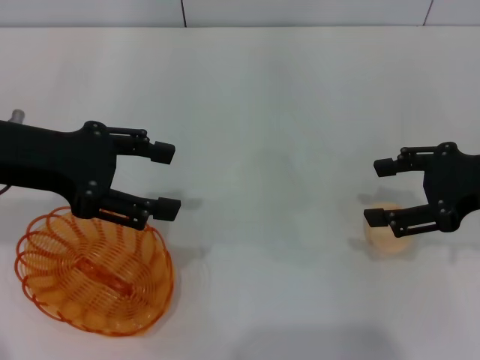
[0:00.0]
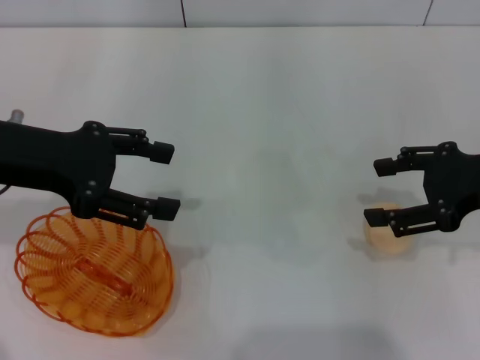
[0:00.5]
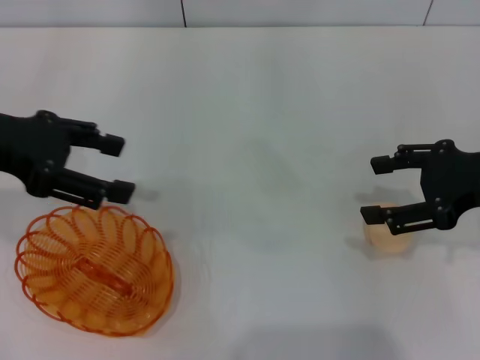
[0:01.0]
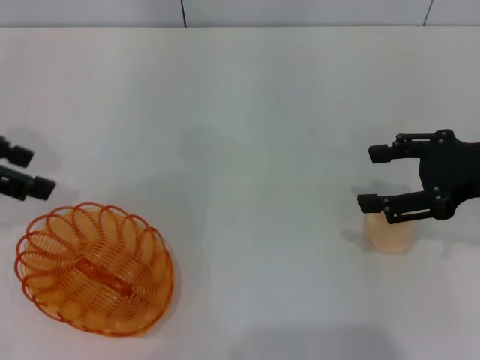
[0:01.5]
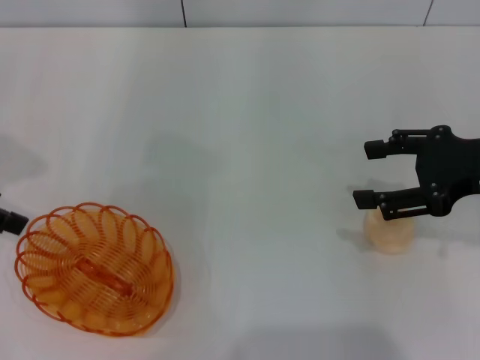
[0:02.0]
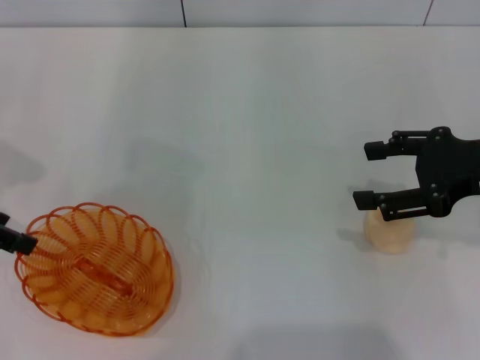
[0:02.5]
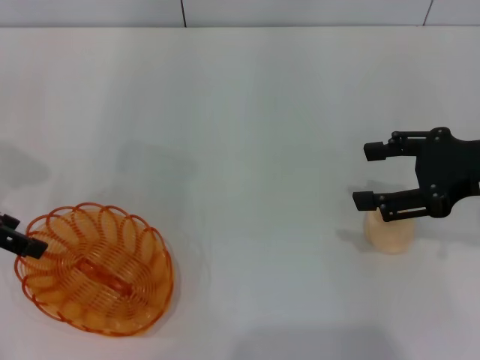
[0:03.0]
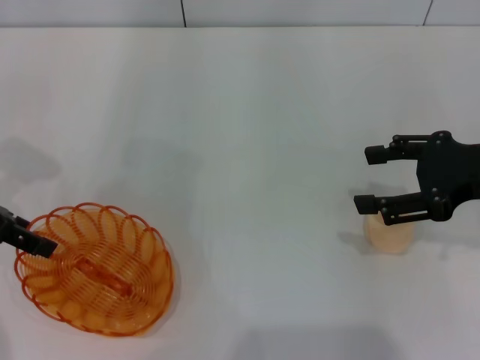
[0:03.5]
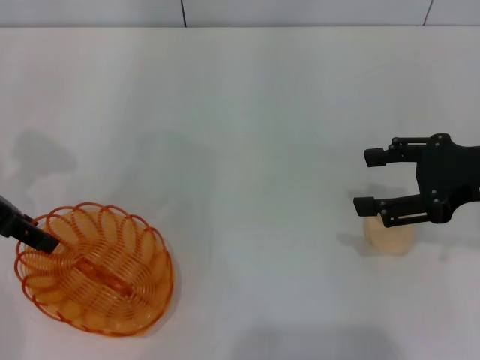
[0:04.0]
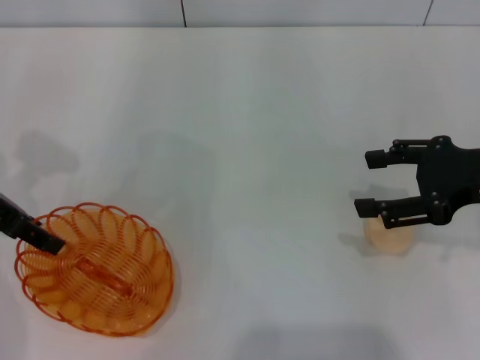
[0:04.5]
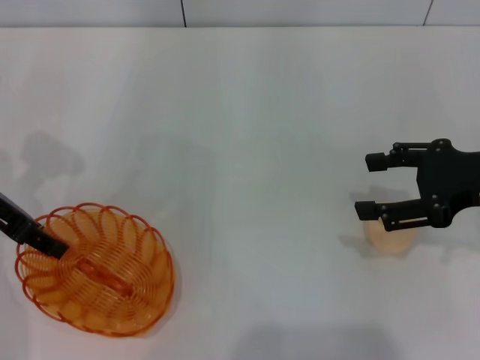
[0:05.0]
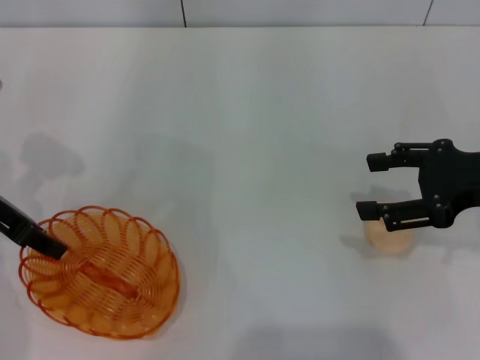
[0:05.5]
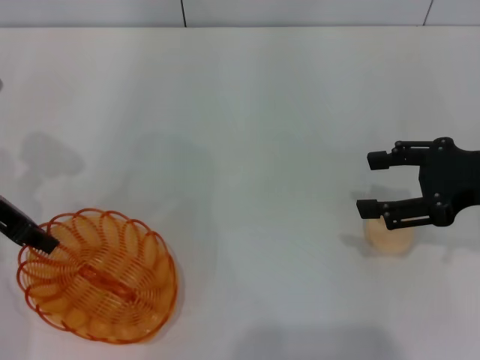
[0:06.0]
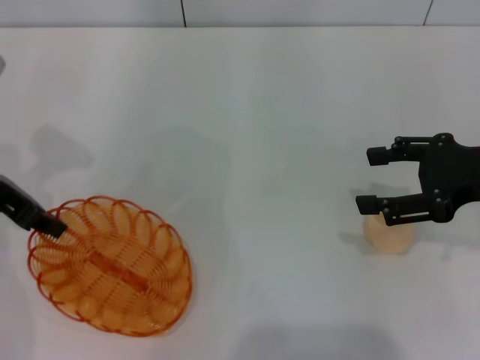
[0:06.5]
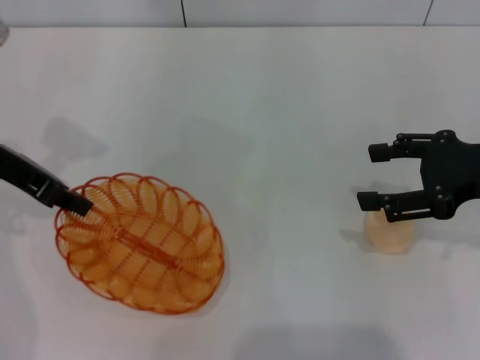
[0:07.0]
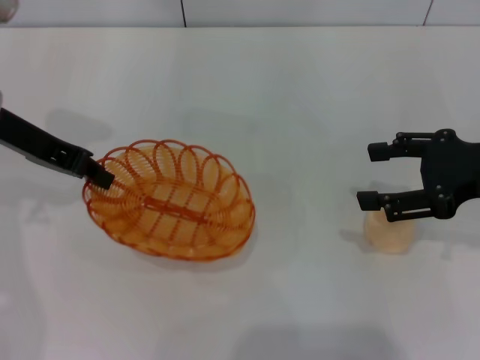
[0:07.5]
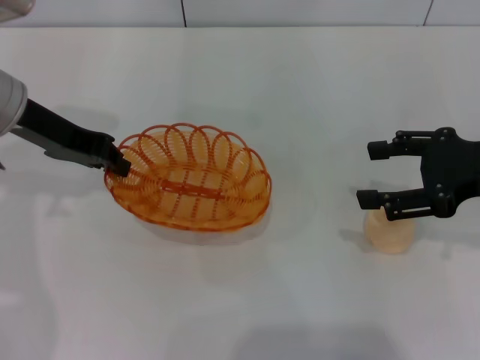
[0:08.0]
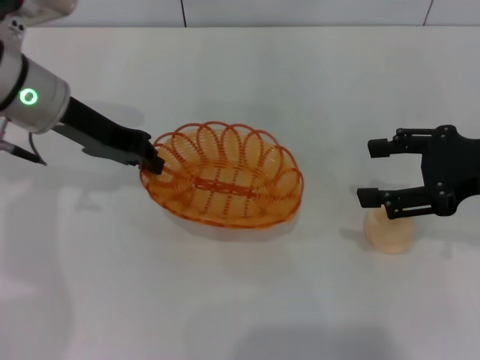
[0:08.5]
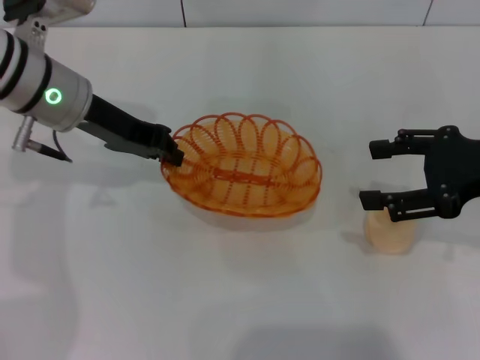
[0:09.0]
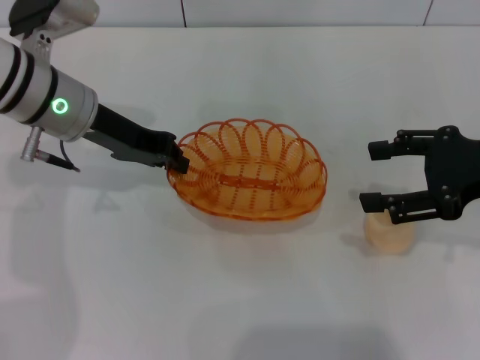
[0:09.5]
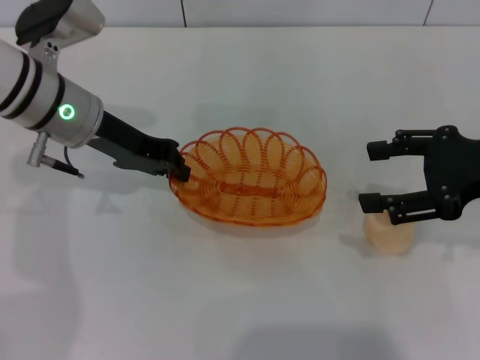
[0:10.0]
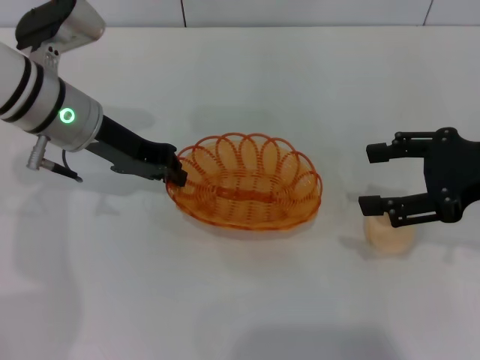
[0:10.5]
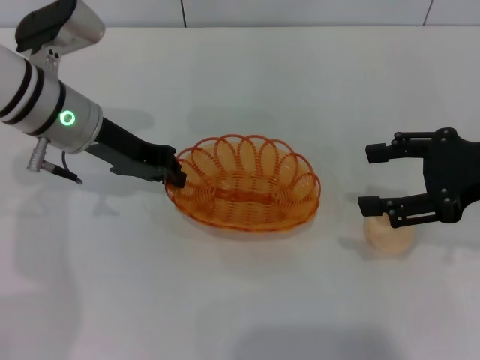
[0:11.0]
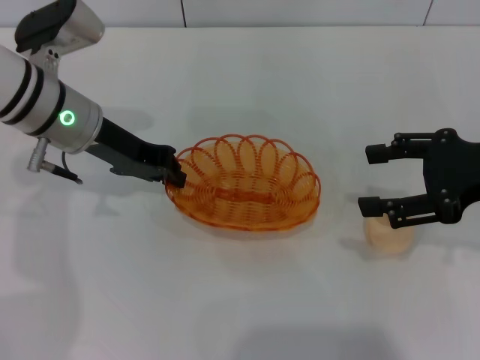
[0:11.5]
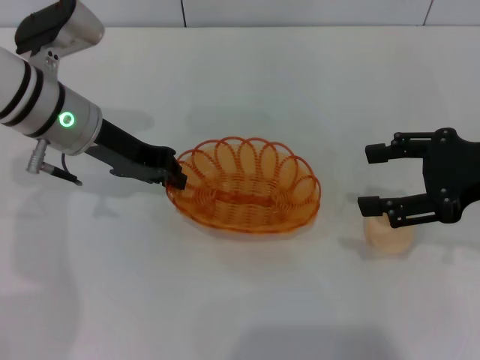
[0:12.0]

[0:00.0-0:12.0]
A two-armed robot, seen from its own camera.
Step, 0:00.0 to 0:06.5: Pick up the basket with the left gripper.
0:00.0 to 0:02.0: The left gripper goes about 10 cm to the left.
0:02.0 to 0:04.0: The left gripper changes place by about 5 cm.
0:04.0 to 0:06.0: The left gripper closes its fingers.
0:06.0 to 0:08.0: The left gripper heads to the right, covering roughly 5 cm.
0:08.0 to 0:10.0: The left gripper moves to the right, approximately 5 cm.
0:10.0 to 0:12.0: The two grippers keep their place.

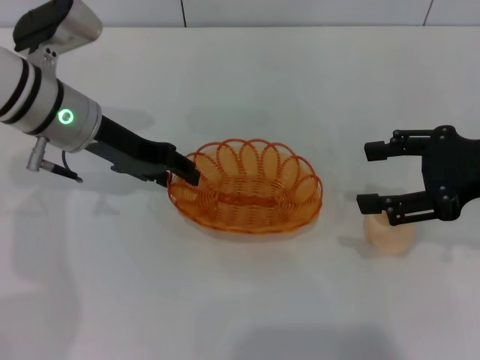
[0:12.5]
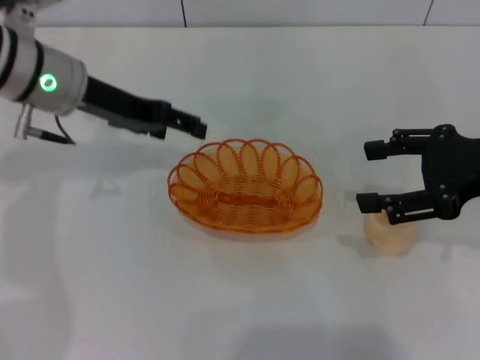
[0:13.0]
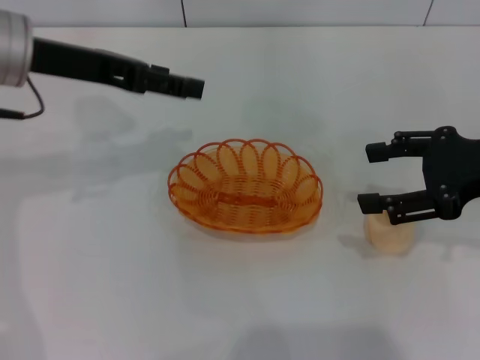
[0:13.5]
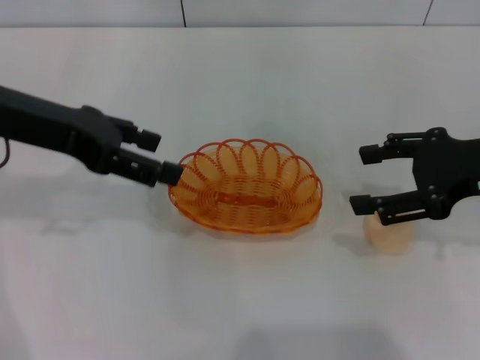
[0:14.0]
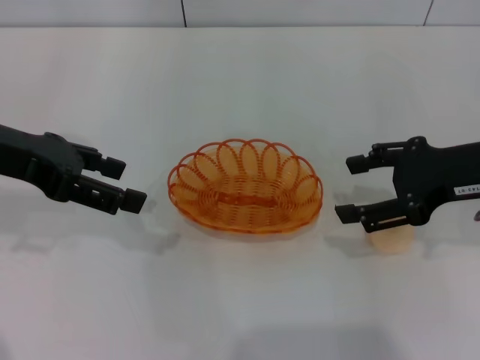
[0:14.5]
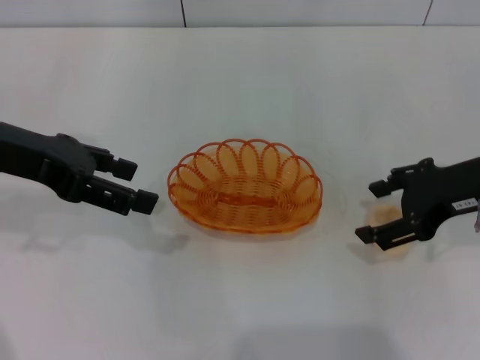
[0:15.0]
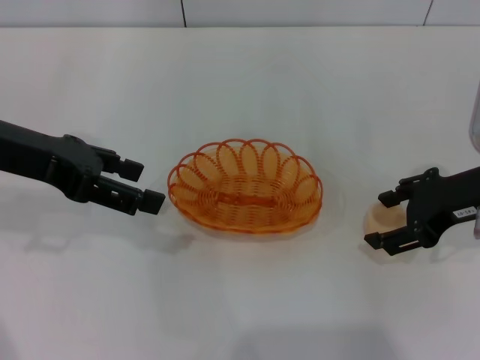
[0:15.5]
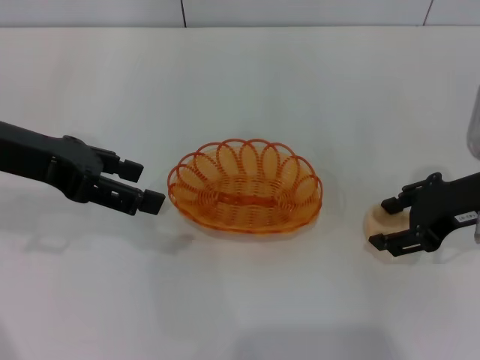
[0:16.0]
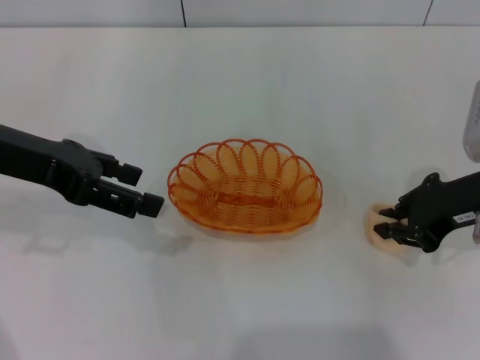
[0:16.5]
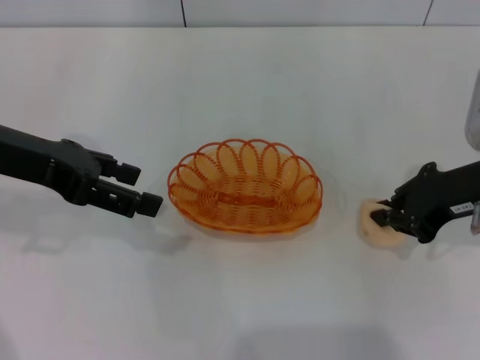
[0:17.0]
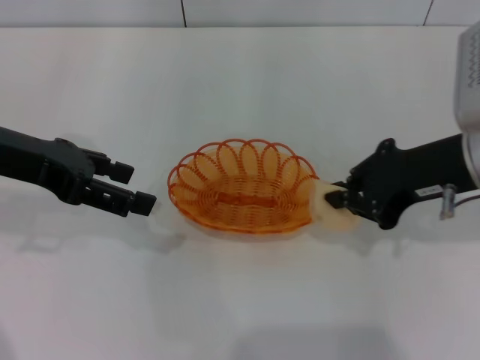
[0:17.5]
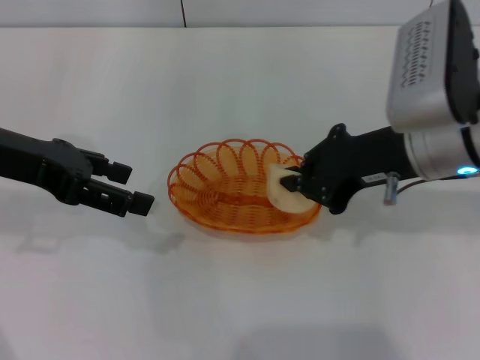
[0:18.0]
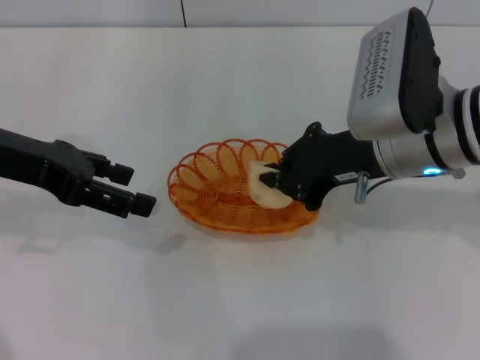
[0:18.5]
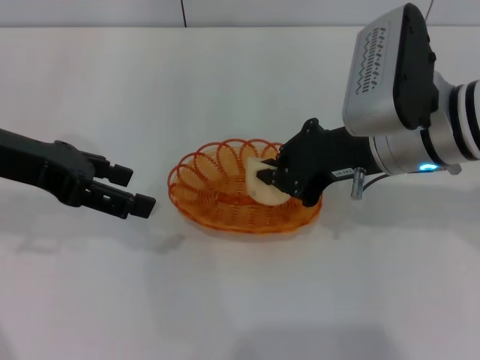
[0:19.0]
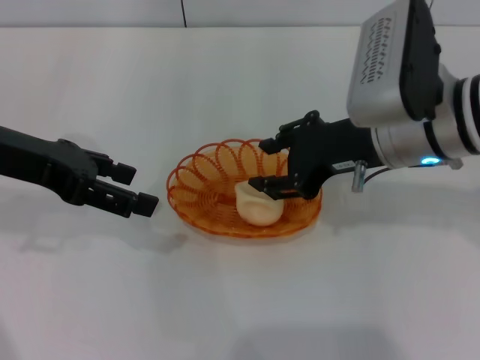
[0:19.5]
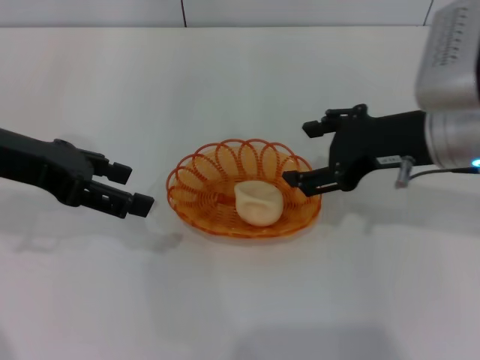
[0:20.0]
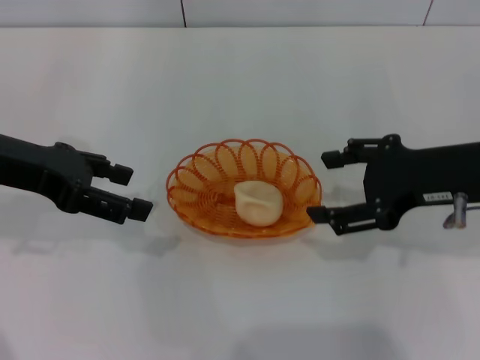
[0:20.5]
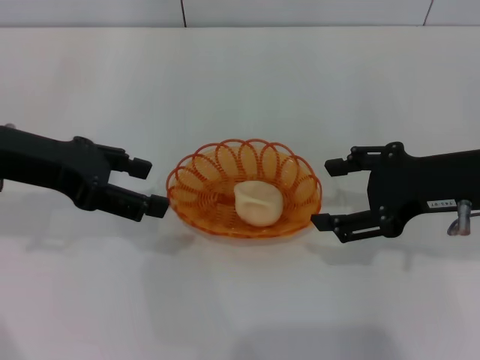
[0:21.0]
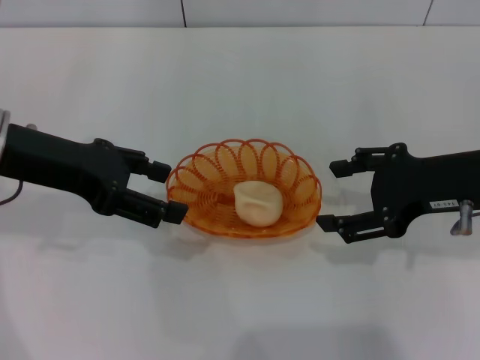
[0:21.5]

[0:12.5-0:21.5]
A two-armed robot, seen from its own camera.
Step, 0:13.5 to 0:17.0: Pick up the egg yolk pastry with the right gripper.
Step, 0:17.5 to 0:19.5: Place the egg yolk pastry into the basket with the right gripper.
0:12.5 to 0:14.5: The left gripper moves upward, to the left and backward, roughly 15 cm, and opens.
0:14.5 to 0:17.0: The right gripper closes up.
0:17.0 to 0:19.5: The right gripper heads to the left, covering about 10 cm.
0:19.5 to 0:21.5: The right gripper is displaced to the right by some 10 cm, and opens its fingers.

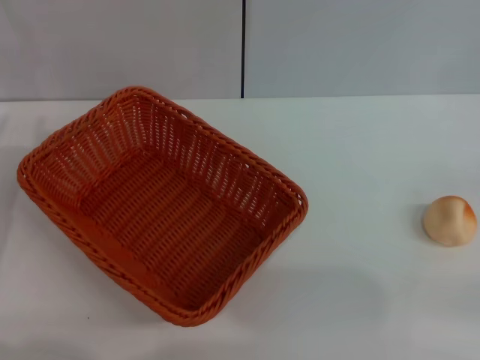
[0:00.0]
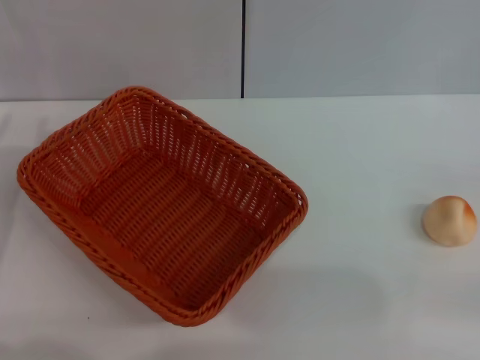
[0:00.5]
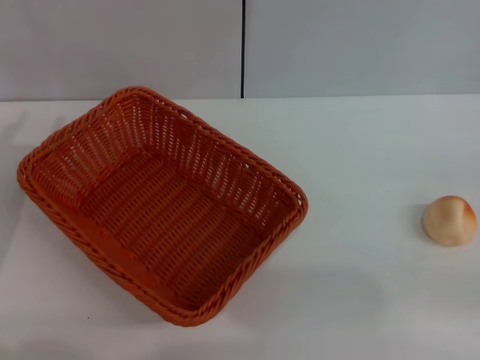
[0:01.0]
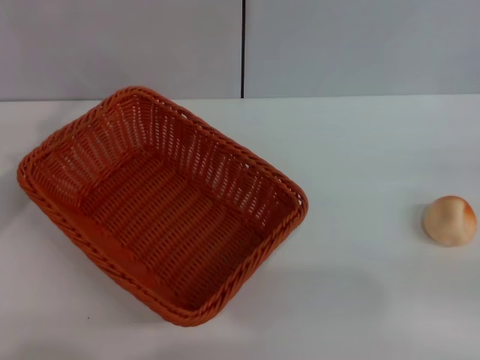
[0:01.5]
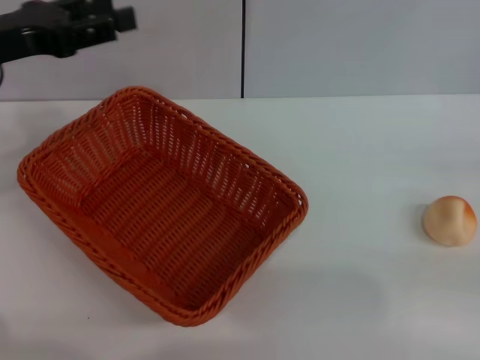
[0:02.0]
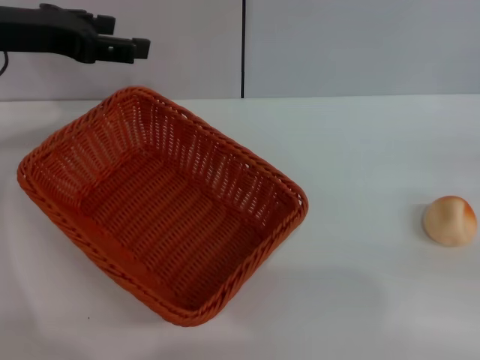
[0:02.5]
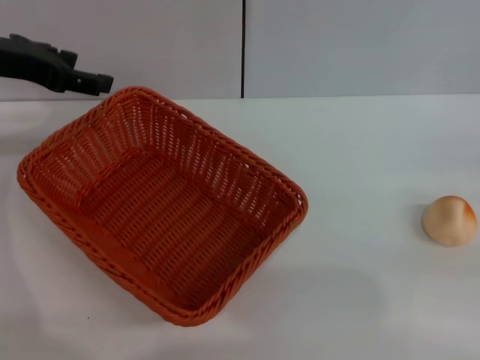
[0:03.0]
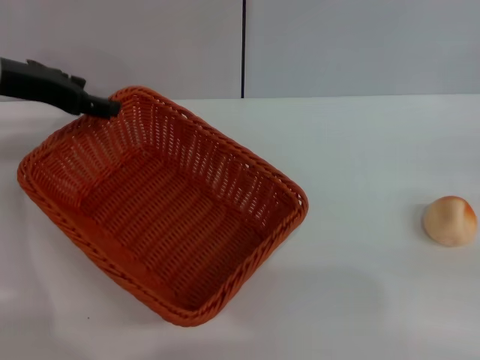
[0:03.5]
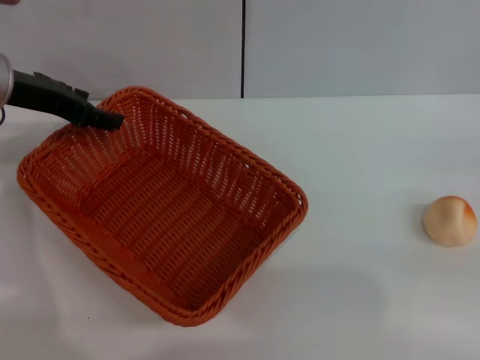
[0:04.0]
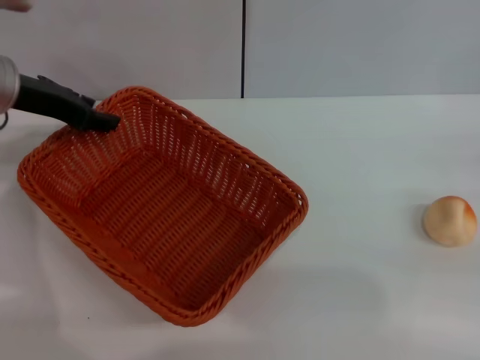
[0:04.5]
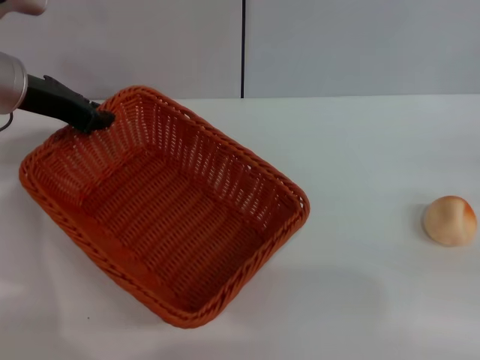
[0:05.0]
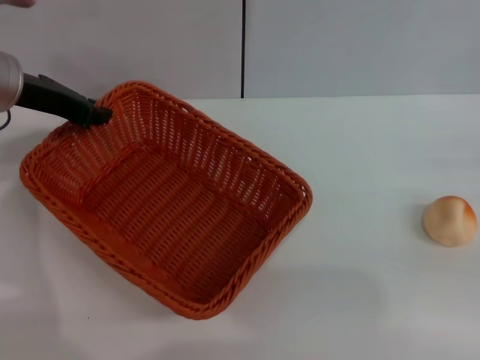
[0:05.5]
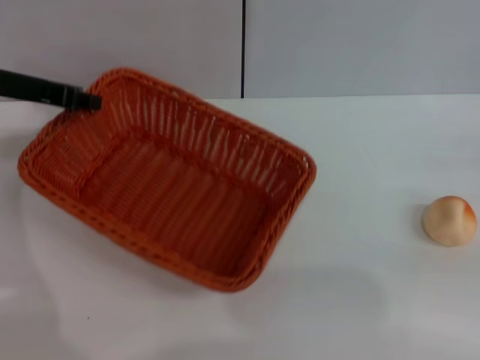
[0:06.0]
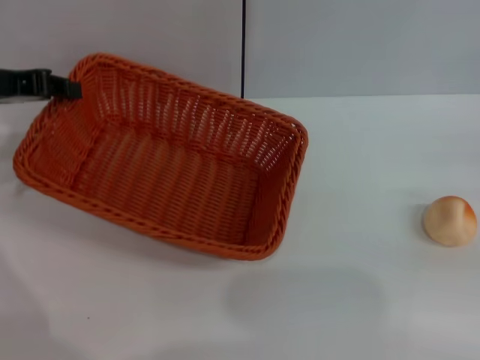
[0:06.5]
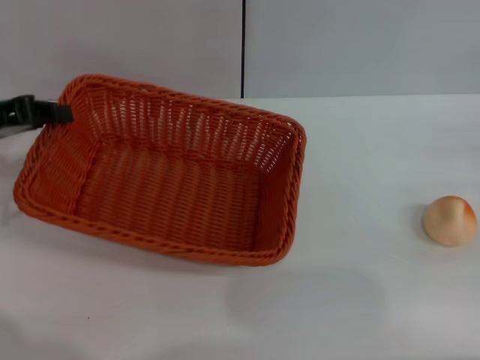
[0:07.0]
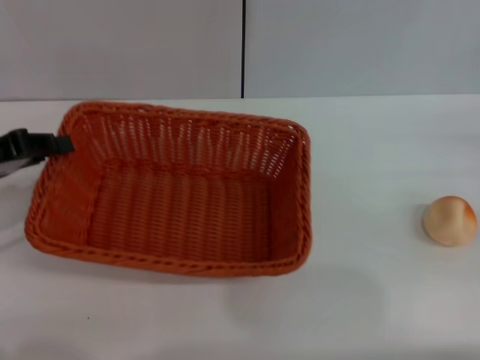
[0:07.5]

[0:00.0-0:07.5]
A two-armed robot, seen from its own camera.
0:00.0 to 0:02.0: The left gripper goes some 15 cm forward and upward.
0:04.0 to 0:05.5: The left gripper closes up.
0:05.5 to 0:07.5: The left gripper moves backward and to the left, approximately 10 cm.
